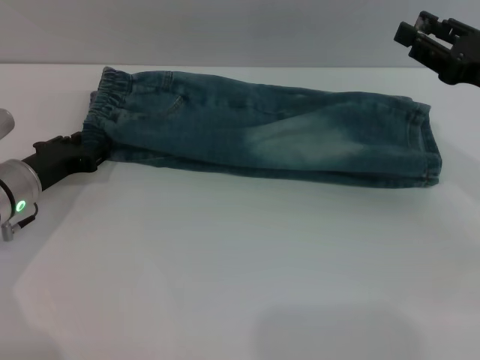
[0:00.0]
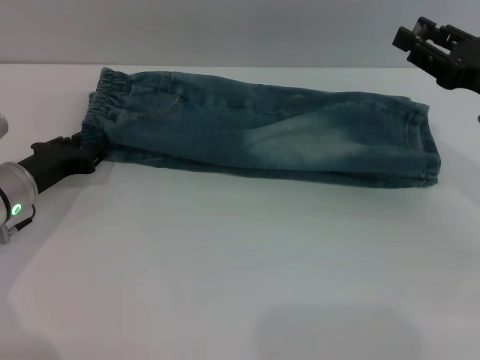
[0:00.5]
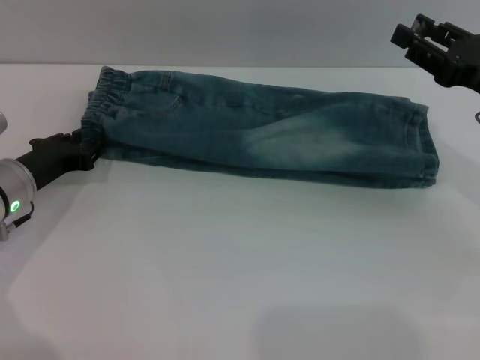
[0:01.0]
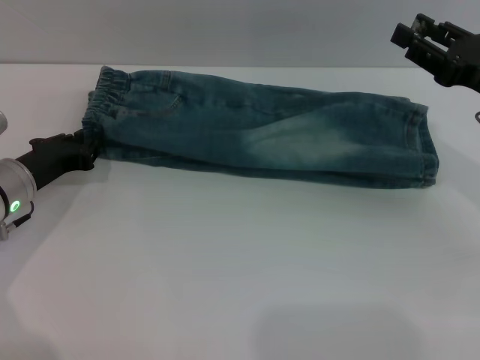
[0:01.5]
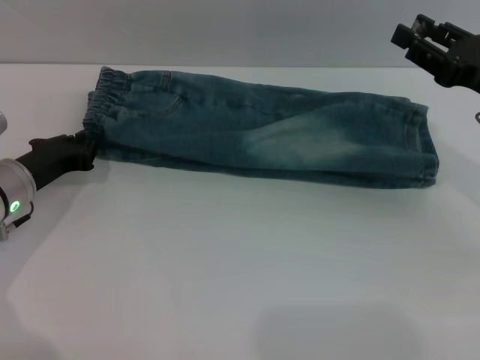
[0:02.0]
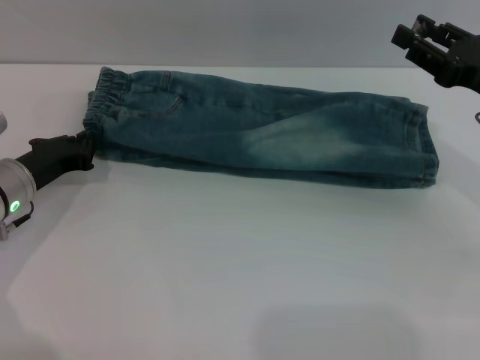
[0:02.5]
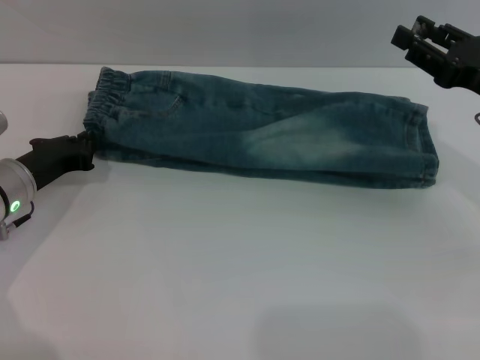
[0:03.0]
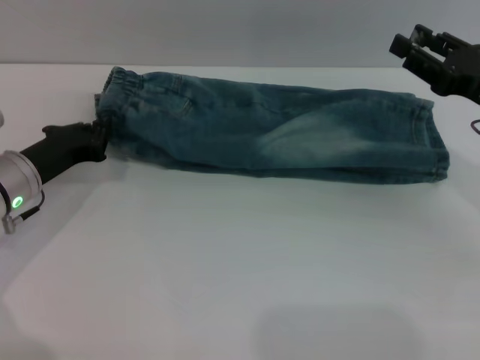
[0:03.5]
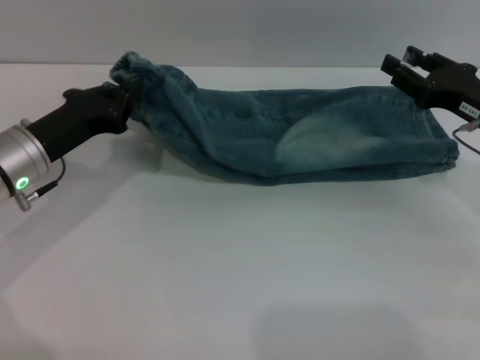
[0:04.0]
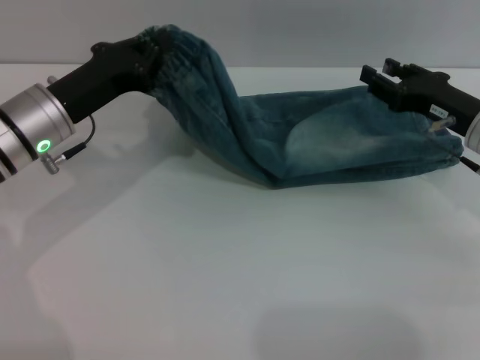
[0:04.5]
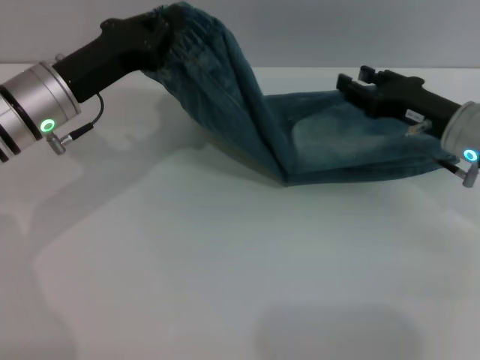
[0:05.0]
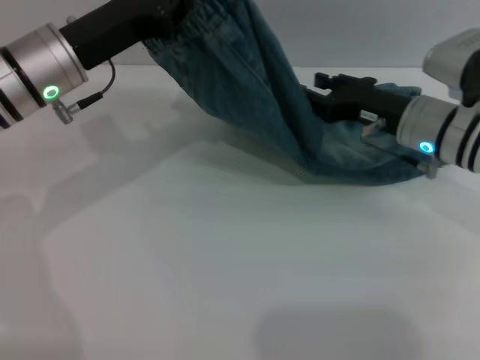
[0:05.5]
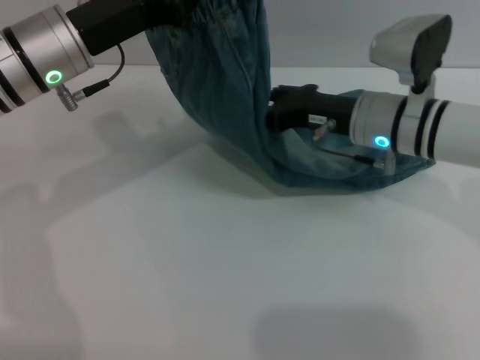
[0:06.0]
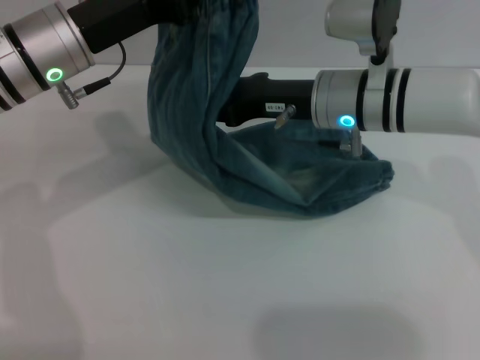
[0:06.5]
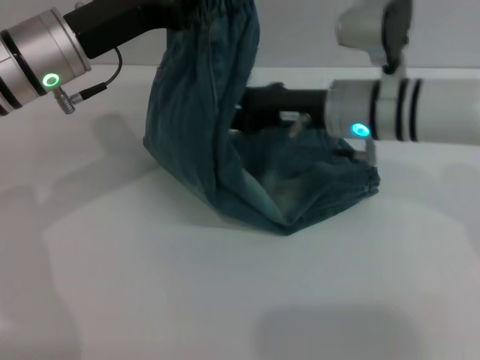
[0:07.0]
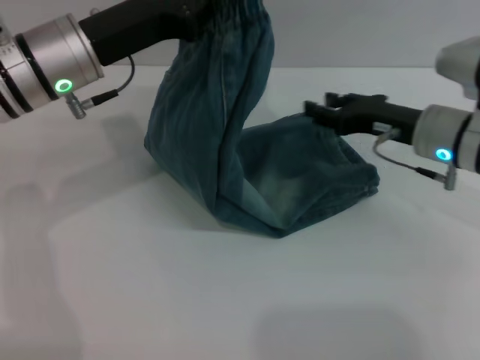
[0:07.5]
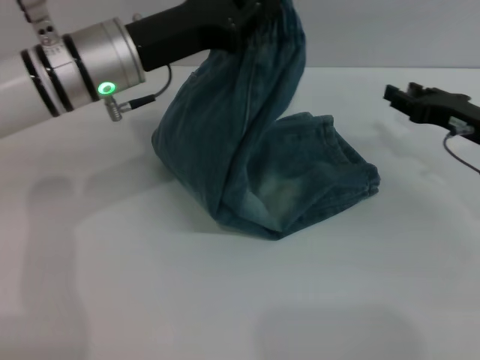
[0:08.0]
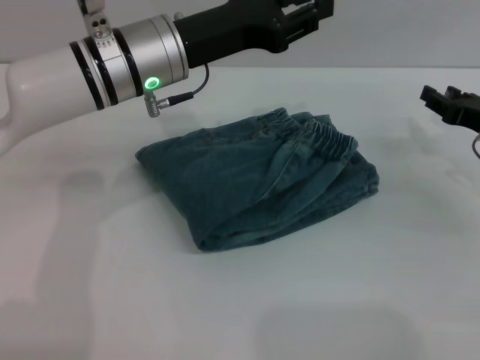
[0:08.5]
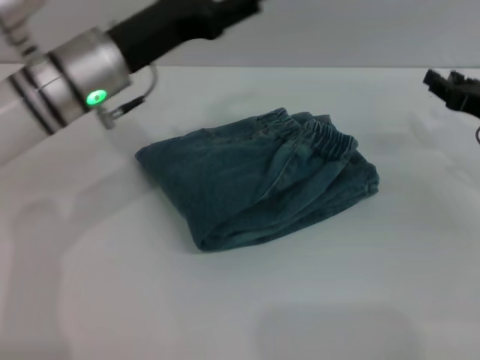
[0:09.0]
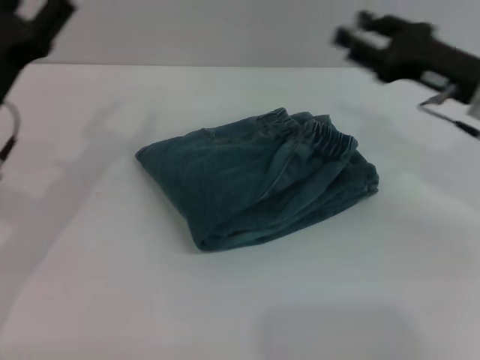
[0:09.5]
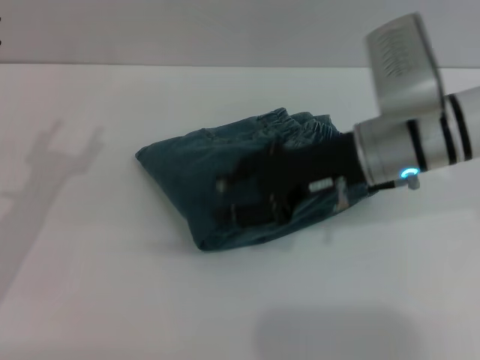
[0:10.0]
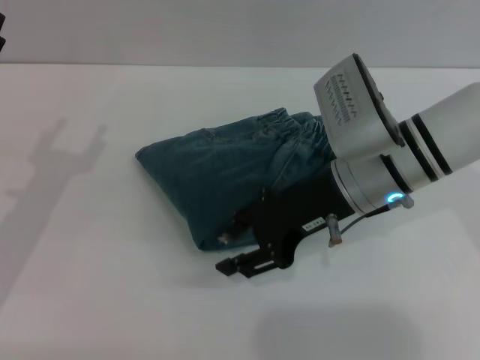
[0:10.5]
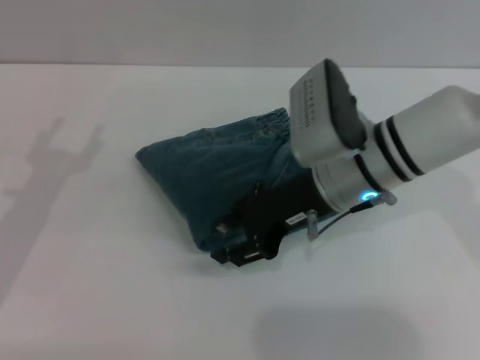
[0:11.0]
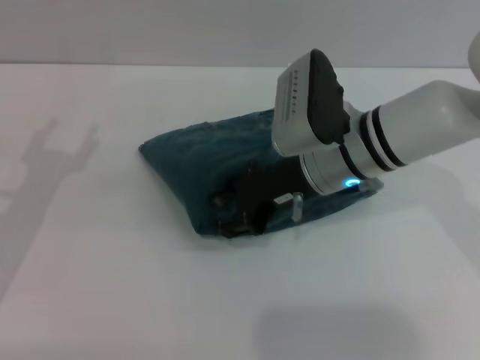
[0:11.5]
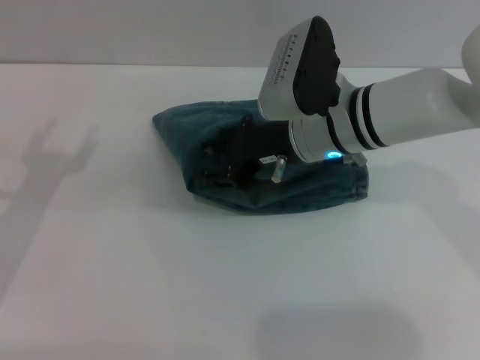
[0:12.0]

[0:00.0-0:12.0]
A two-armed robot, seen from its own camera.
Step, 0:00.0 to 0:08.5: Fold the pants from left to right with the left gripper.
0:00.0 to 0:02.0: The left gripper closes up.
0:02.0 to 0:04.0: The left gripper changes place by about 5 cm.
0:04.0 to 0:06.0: The left gripper heads upward and to the right, covering about 10 cm. Meanwhile the right gripper shifts roughly 15 cm to the left.
0:06.0 to 0:08.0: The right gripper travels to the right by about 15 cm.
0:08.0 to 0:10.0: The left gripper travels to the left, backward and downward by approximately 20 cm, and opens its fingers, while the right gripper travels to the left and upward by about 15 cm.
0:10.0 to 0:12.0: The right gripper moves to the left, some 5 cm.

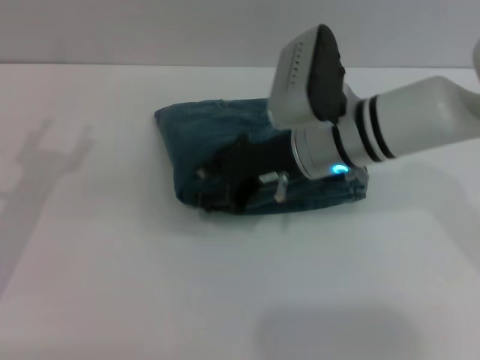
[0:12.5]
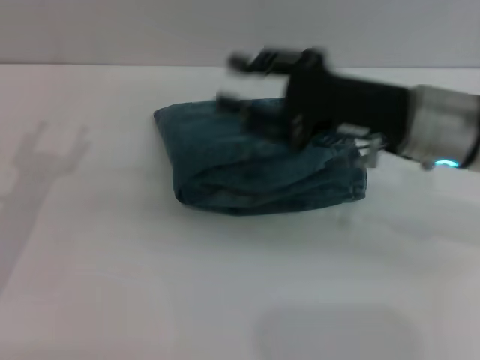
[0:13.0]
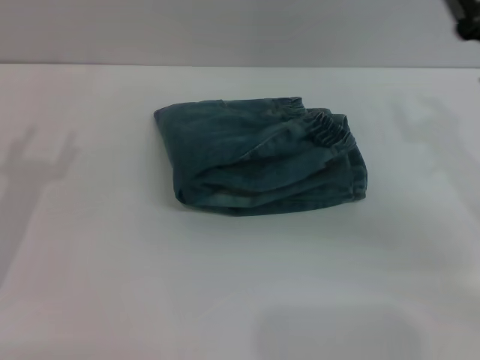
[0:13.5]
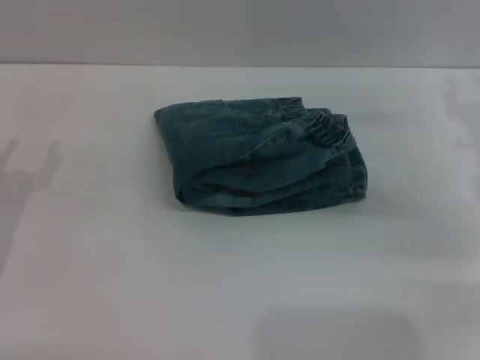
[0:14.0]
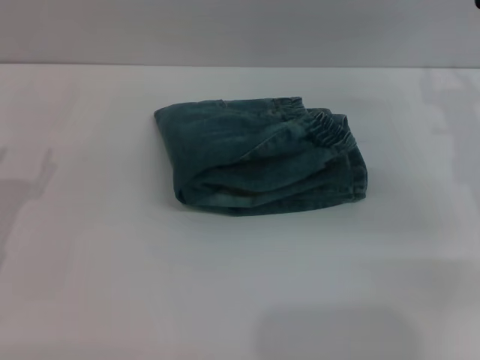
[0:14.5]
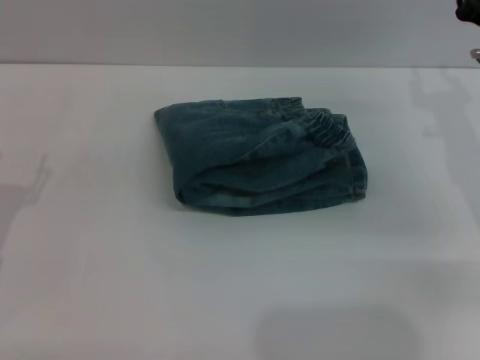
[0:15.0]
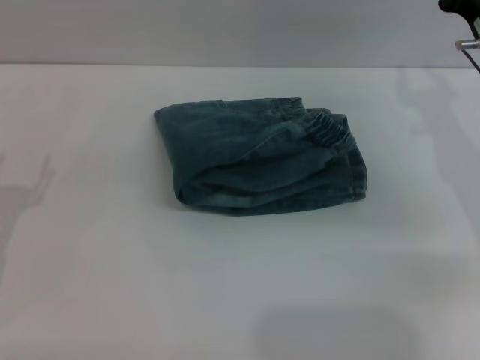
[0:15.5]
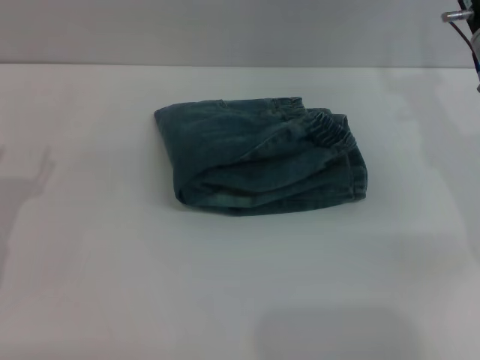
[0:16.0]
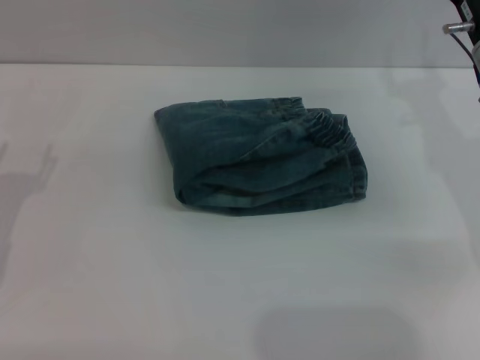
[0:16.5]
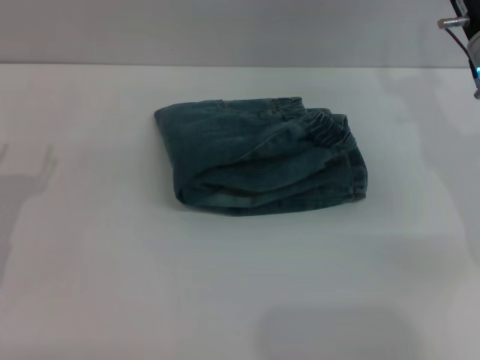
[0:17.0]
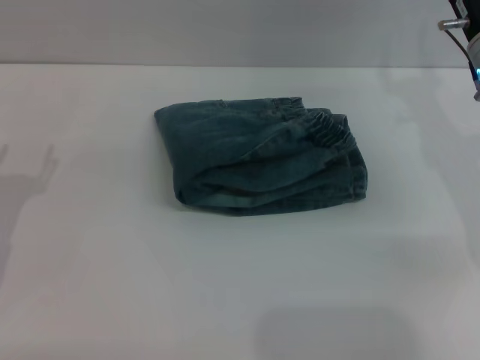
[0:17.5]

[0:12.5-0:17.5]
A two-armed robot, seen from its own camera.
0:12.5 to 0:15.0: The left gripper shifts by some 5 cm, while the right gripper heads to the right, covering approximately 15 cm.

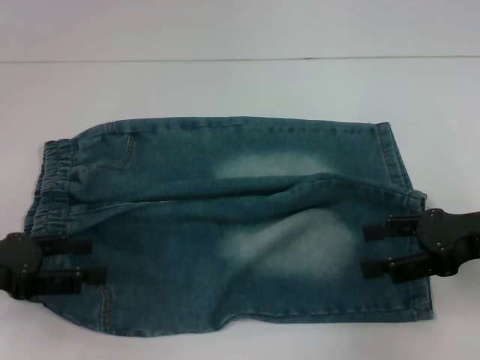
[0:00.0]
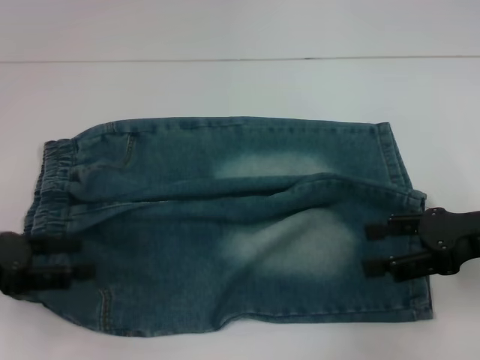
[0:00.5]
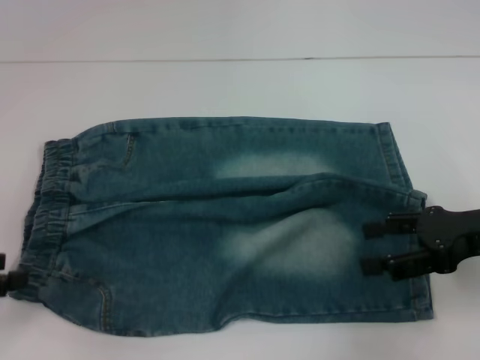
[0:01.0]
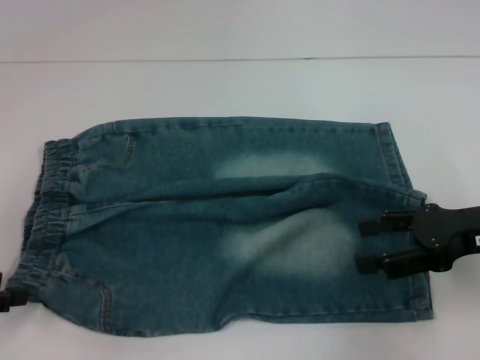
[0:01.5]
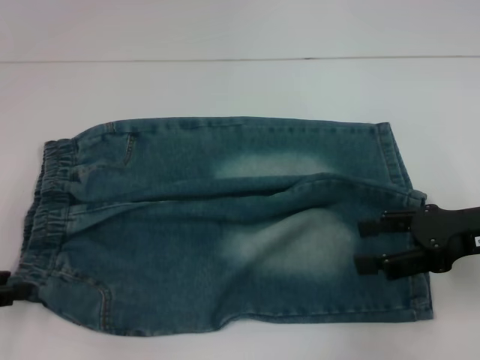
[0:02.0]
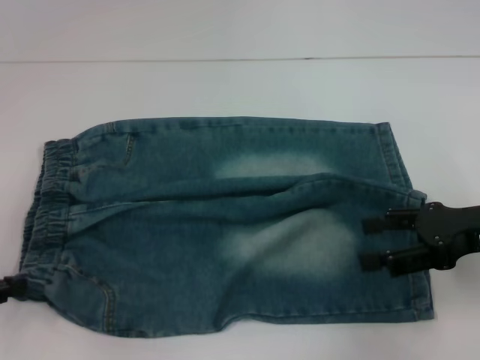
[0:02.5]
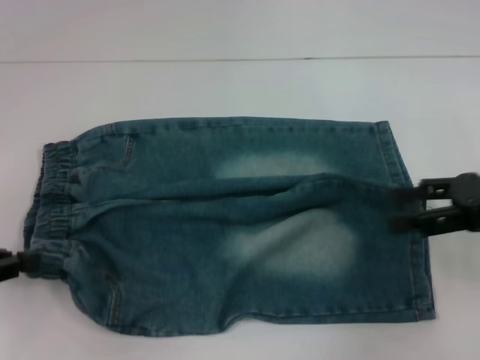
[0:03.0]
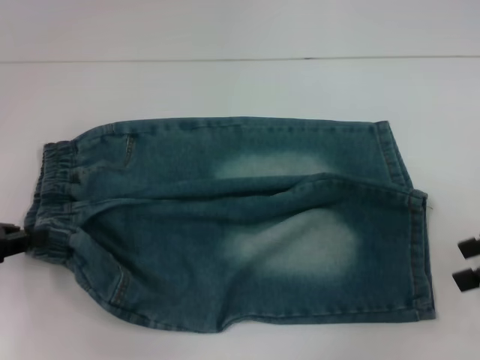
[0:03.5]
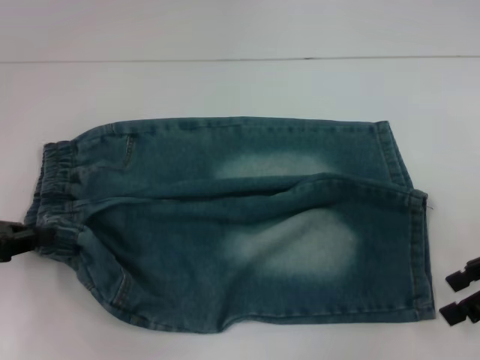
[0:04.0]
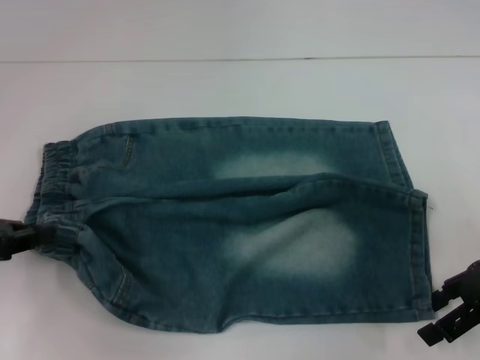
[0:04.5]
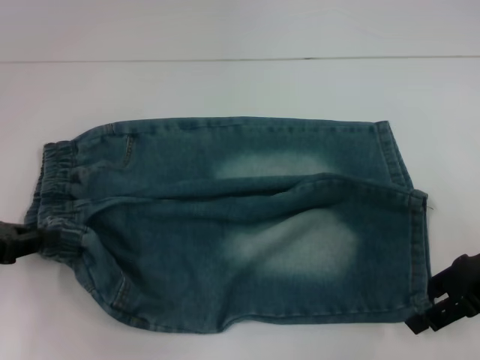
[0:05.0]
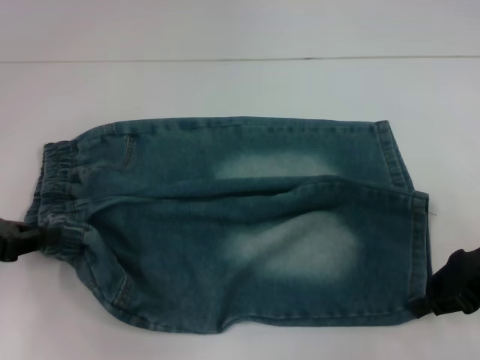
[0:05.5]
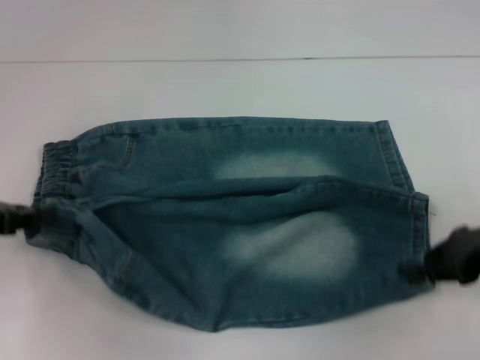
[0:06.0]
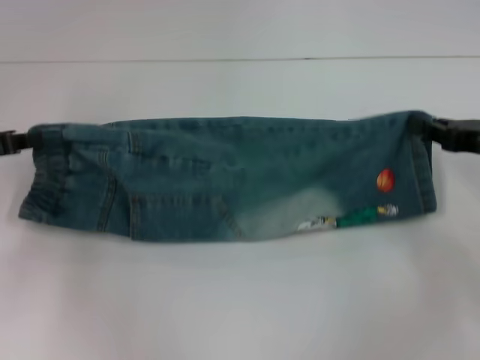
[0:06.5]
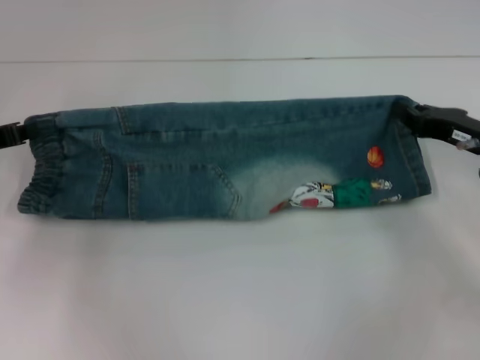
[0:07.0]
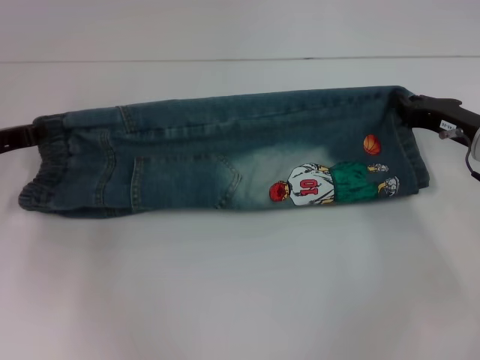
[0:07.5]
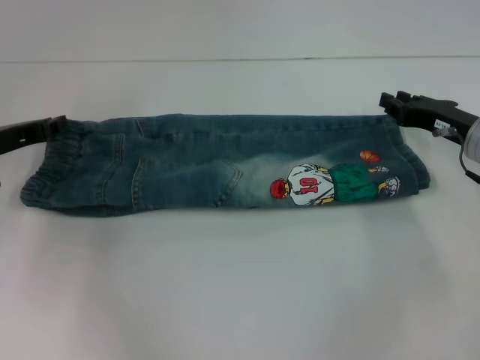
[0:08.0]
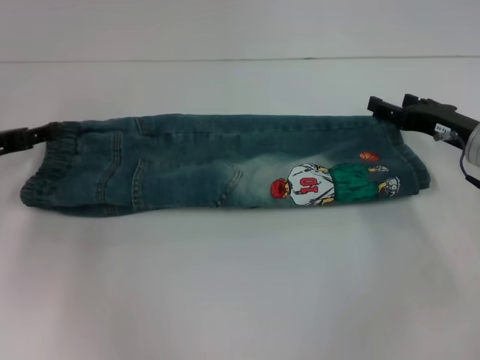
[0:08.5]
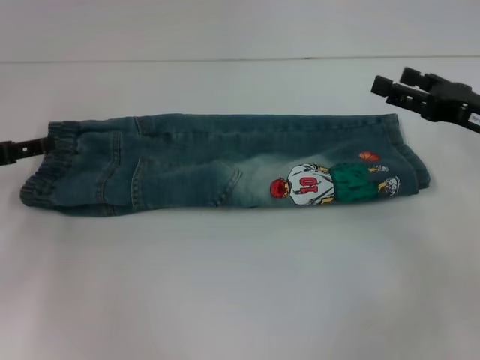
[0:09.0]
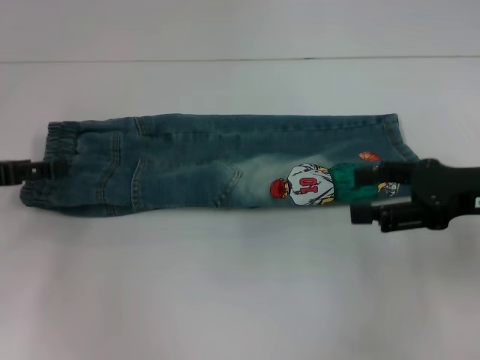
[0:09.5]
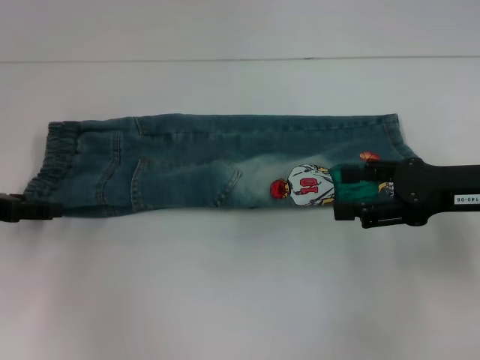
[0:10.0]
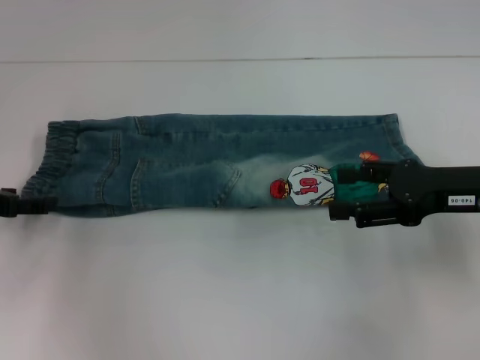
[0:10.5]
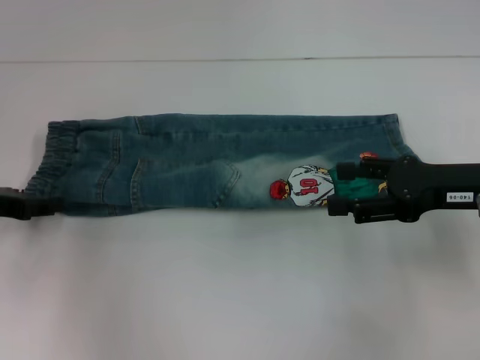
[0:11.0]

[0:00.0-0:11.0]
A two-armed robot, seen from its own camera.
Step, 0:00.0 to 0:02.0: Hold the lower left waistband with your left hand.
Step, 0:02.5 to 0:05.0: Grab the lower right pant leg with your right hand.
Step, 0:05.5 to 0:08.0: Fold upward with your right hand.
0:00.0 to 0:02.0: The left gripper goes some 5 cm to the left.
0:02.0 to 0:03.5: The right gripper is displaced to the right by approximately 5 cm. The left gripper moves approximately 5 cm, and closes its fingers.
0:03.5 to 0:05.5: The right gripper is displaced to the left by about 5 cm, and closes up.
0:05.5 to 0:07.5: Both grippers move forward, approximately 5 cm.
0:07.5 to 0:09.0: The right gripper changes place by some 5 cm, and opens. Meanwhile the left gripper opens up.
